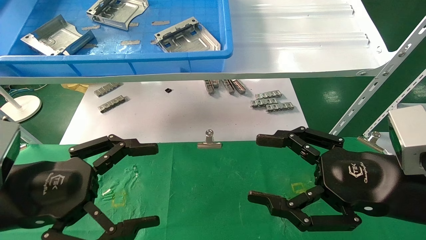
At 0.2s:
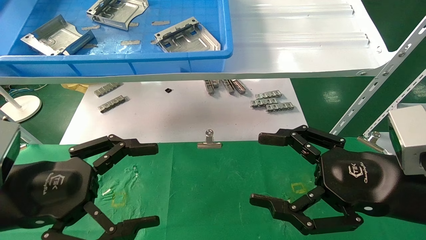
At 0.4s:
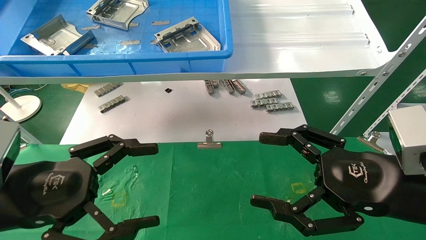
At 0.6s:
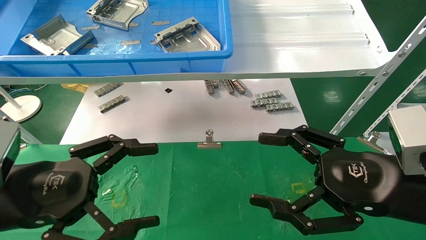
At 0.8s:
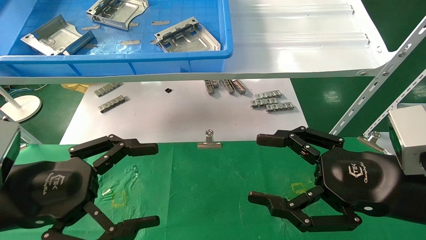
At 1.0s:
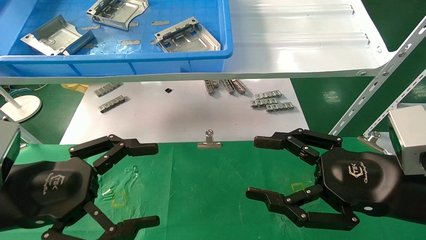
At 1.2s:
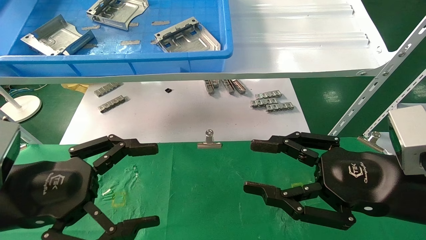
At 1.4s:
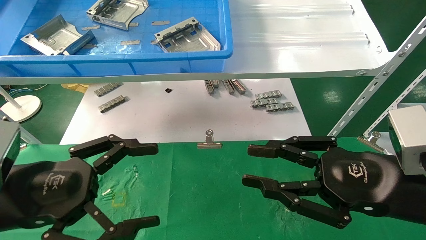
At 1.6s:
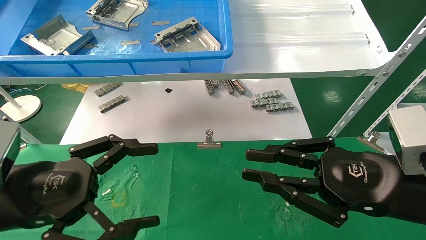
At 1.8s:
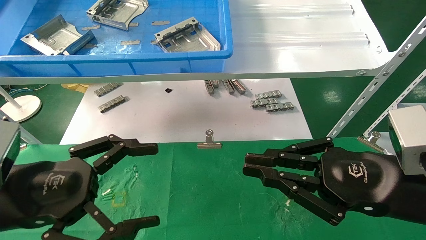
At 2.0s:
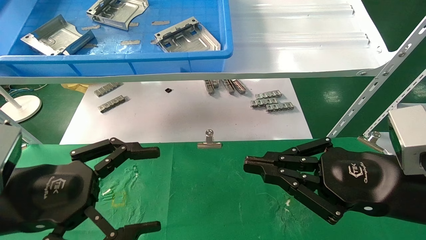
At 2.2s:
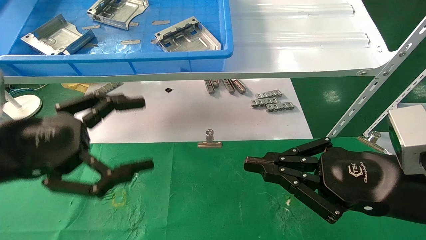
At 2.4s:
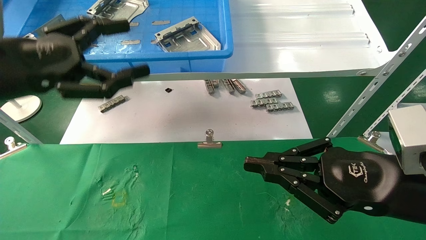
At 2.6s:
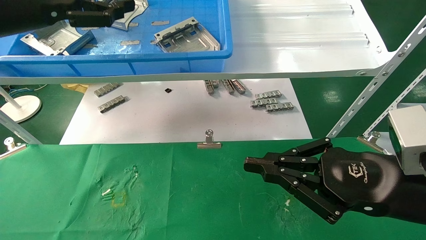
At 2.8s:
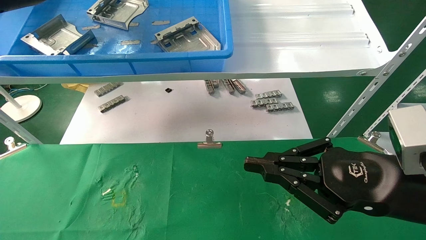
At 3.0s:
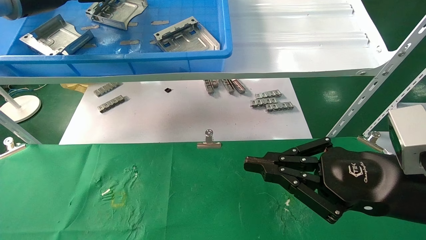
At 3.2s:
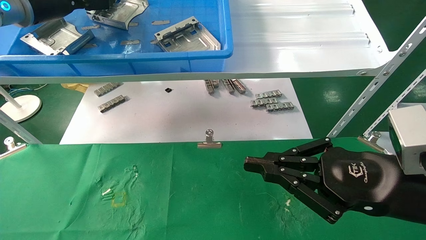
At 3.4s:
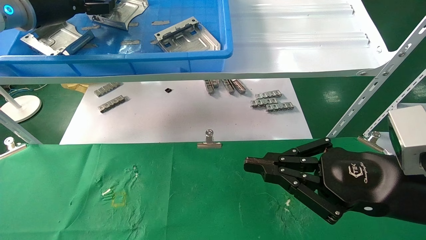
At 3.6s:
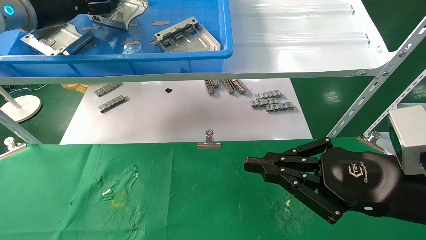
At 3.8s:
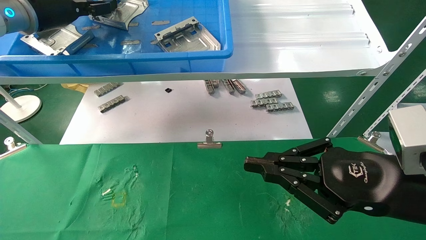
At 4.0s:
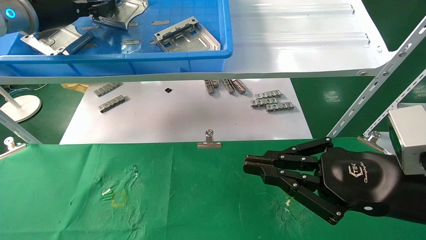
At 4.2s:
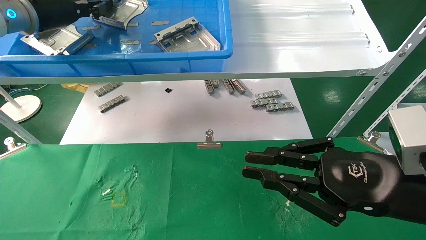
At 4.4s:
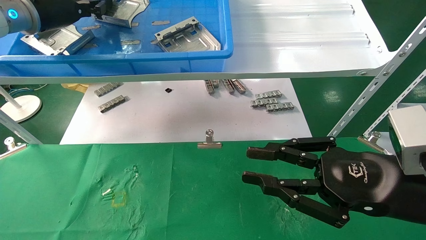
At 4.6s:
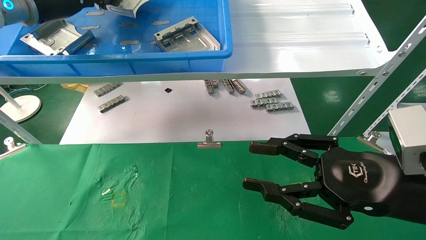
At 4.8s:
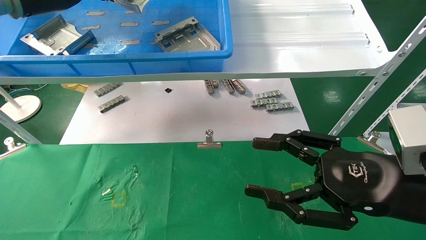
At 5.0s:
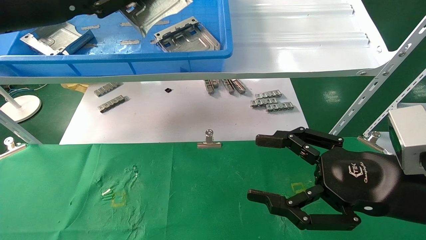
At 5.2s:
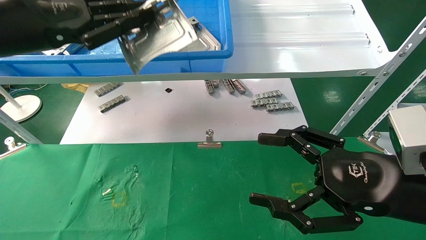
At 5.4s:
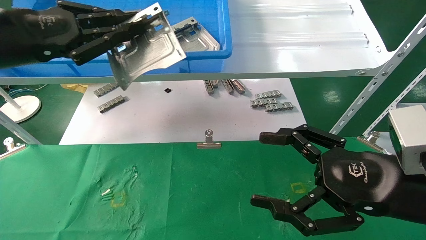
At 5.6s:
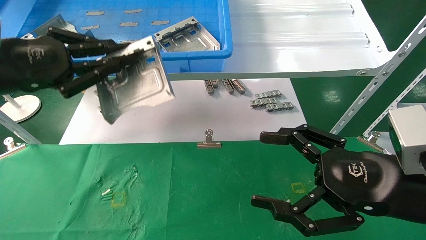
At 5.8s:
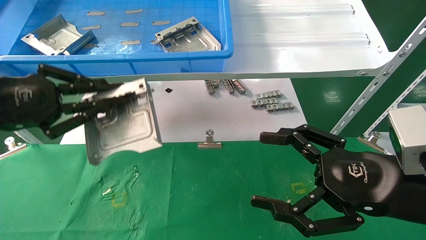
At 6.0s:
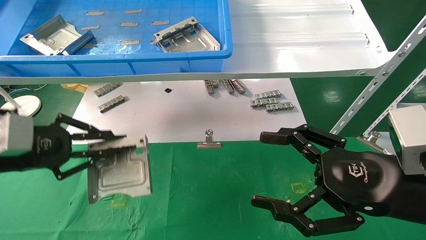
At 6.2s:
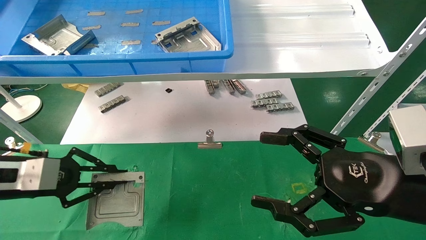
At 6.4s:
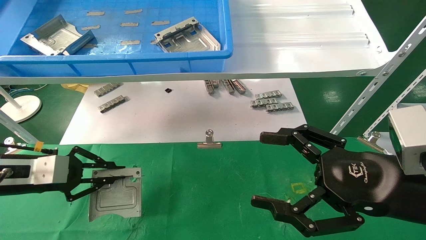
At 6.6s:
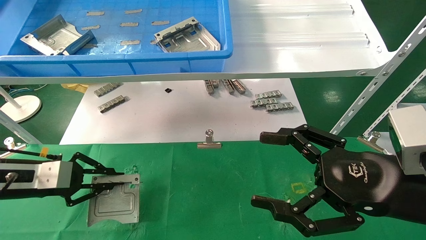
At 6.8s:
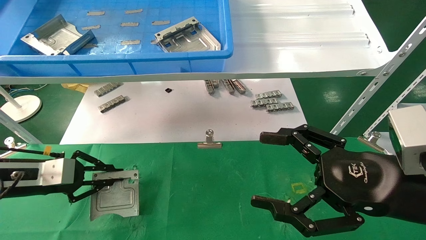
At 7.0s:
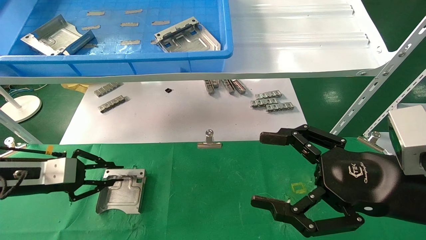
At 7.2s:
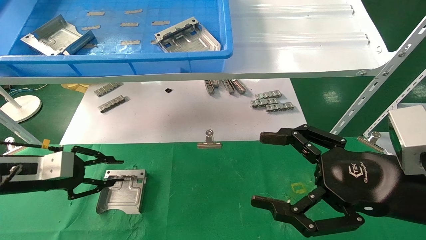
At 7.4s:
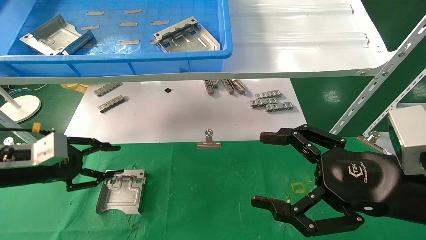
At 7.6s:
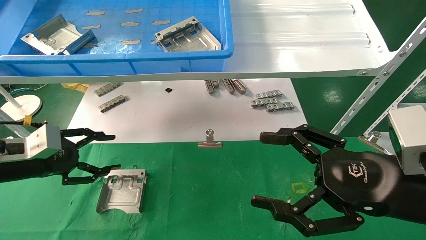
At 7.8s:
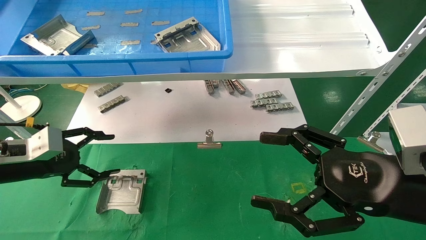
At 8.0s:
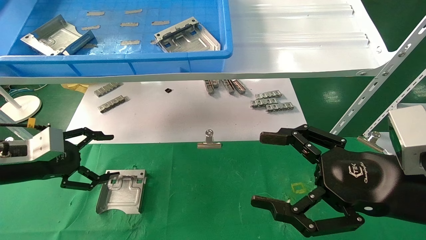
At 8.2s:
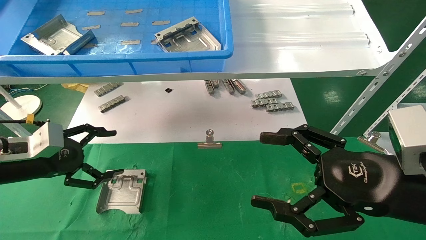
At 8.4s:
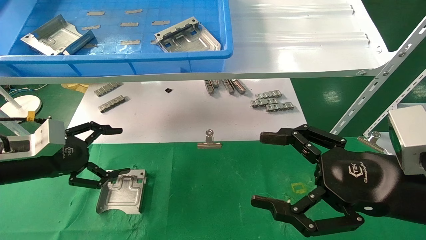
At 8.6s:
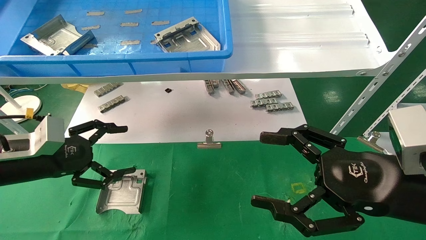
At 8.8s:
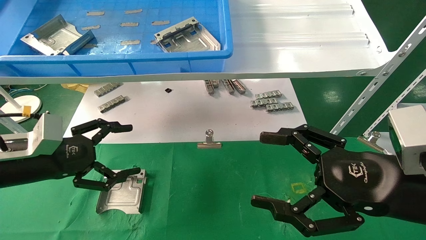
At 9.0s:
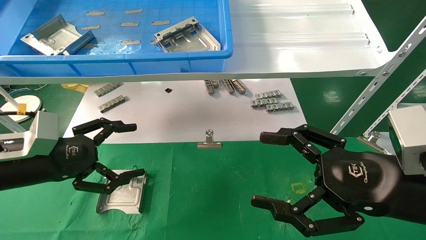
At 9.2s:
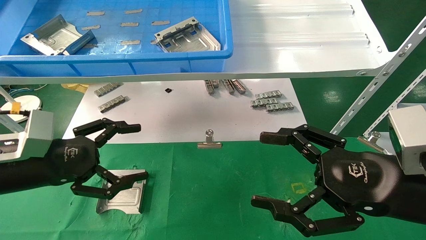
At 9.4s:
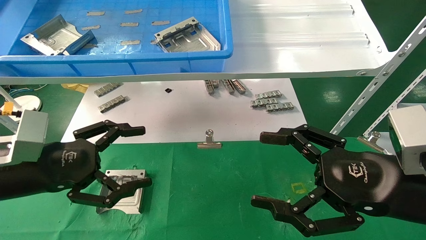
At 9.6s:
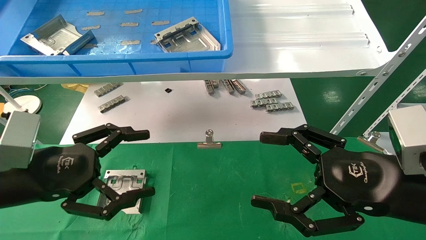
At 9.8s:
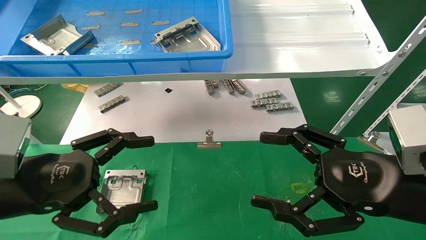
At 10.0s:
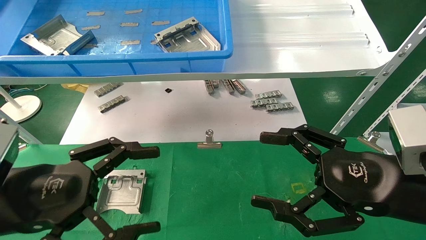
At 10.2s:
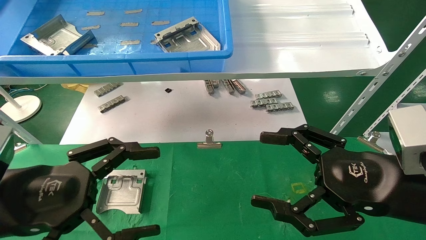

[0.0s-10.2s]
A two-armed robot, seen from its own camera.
Task of the whole recording: use the mechanical arm to pick up the parts and place them on the table.
Step, 1.4s to 4.6s: Pick up the hard drive bracket from the feeding area.
Step, 4.8s to 7.4s: Place the hard drive bracket into the box.
0.0s to 1.4s: The two grippers keep their place.
1.4s to 3.0s: The right gripper closes its fingers. Meanwhile the left gripper is displaced upward and forward by some 30 cm.
3.0s to 4.4s: The left gripper closes its fingers.
4.4s to 5.8s: The left gripper moves backward and downward, about 20 cm. The right gripper opens its fingers.
5.8s to 7.2s: The left gripper is displaced downward and forward by approximately 15 cm.
7.2s to 8.8s: The left gripper shifts by roughly 5 cm, and opens.
8.8s to 10.2s: The left gripper goes some 15 cm backward and to the right.

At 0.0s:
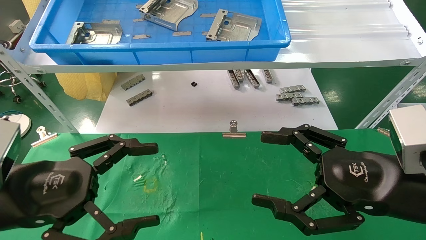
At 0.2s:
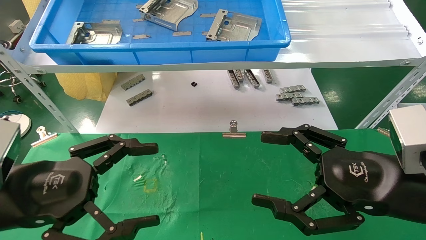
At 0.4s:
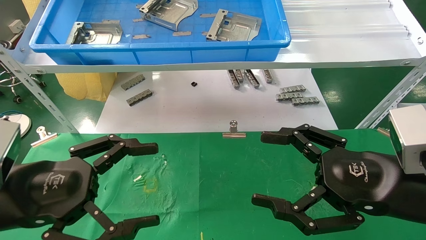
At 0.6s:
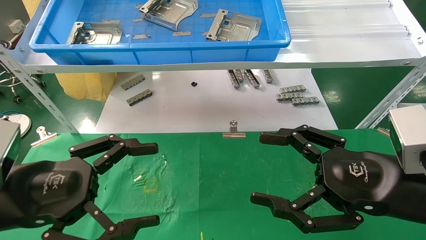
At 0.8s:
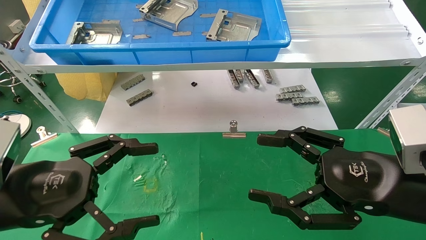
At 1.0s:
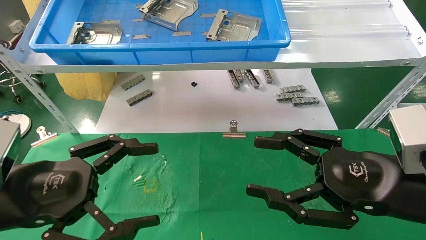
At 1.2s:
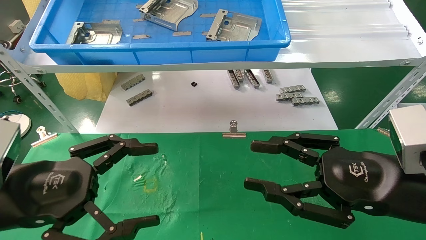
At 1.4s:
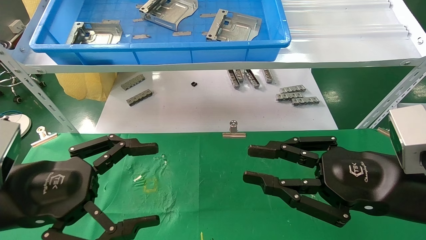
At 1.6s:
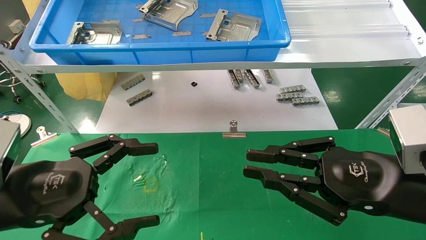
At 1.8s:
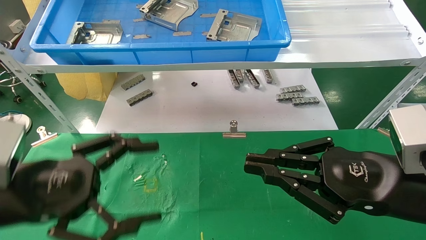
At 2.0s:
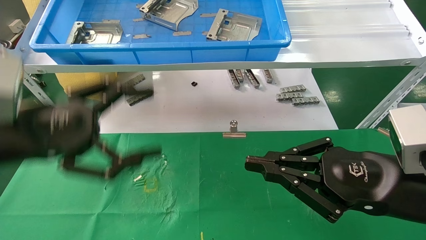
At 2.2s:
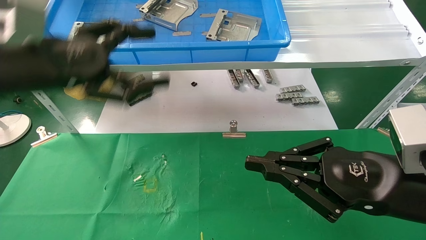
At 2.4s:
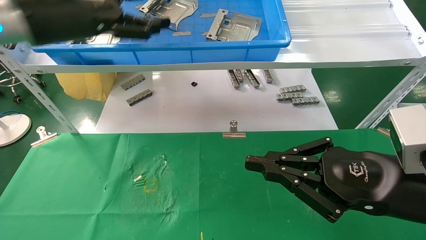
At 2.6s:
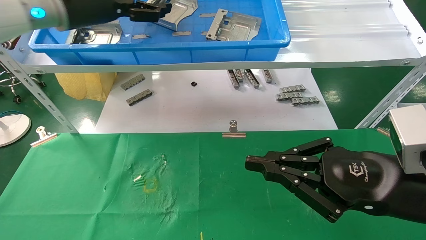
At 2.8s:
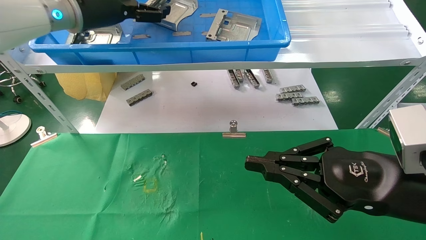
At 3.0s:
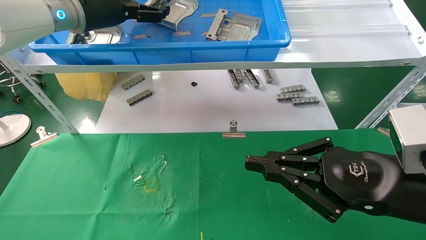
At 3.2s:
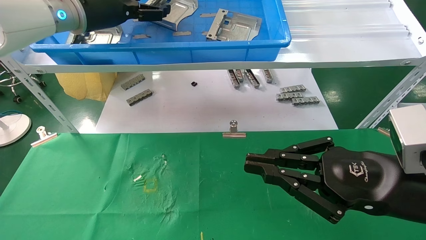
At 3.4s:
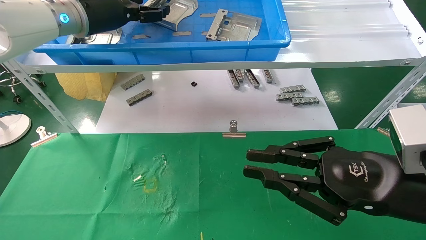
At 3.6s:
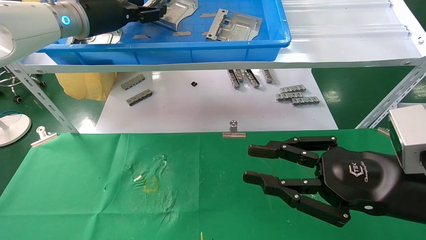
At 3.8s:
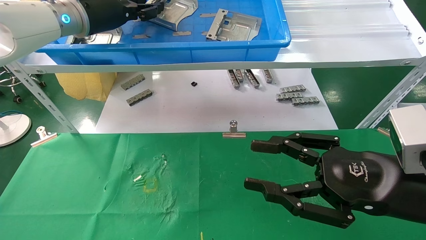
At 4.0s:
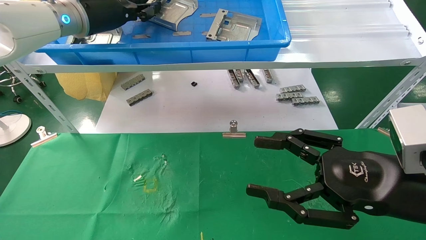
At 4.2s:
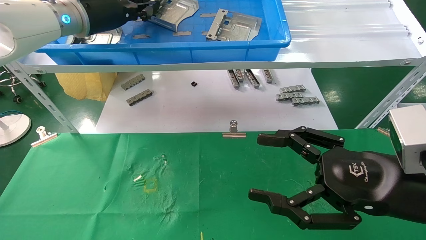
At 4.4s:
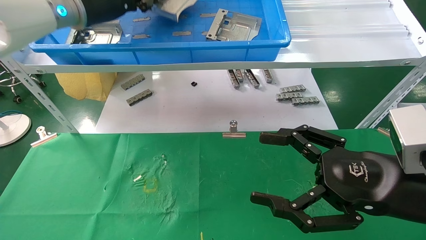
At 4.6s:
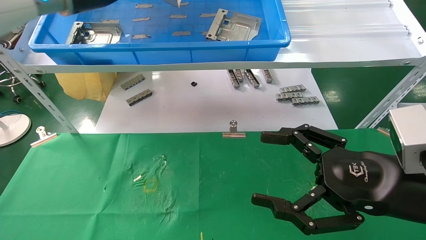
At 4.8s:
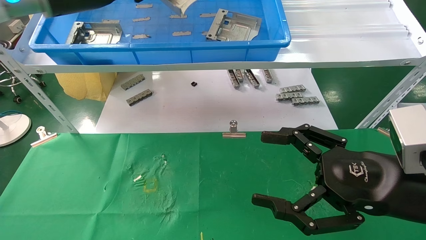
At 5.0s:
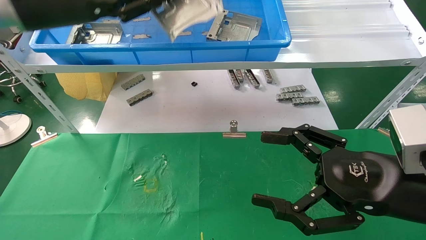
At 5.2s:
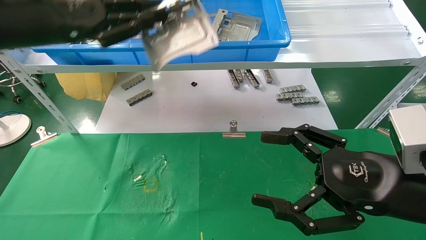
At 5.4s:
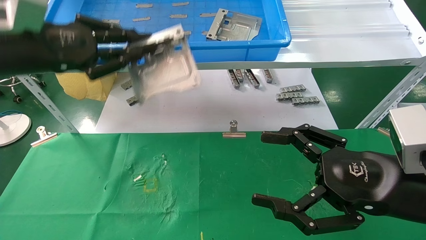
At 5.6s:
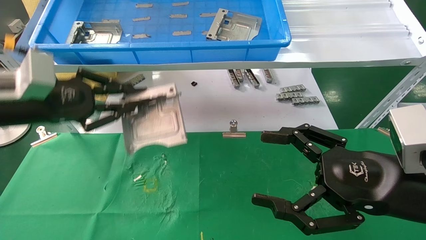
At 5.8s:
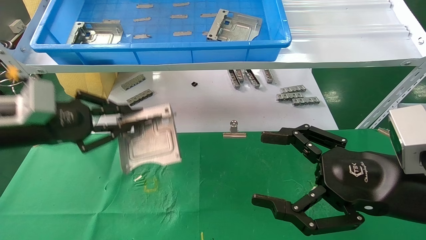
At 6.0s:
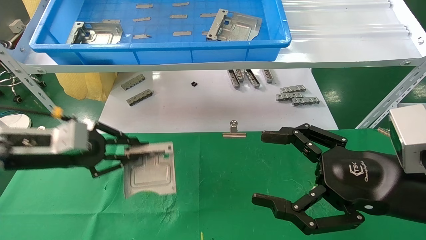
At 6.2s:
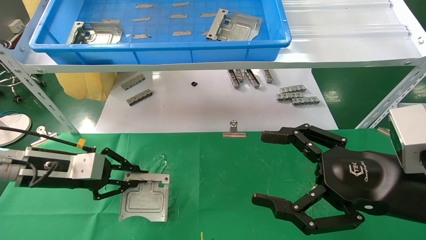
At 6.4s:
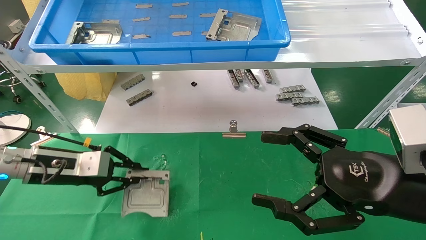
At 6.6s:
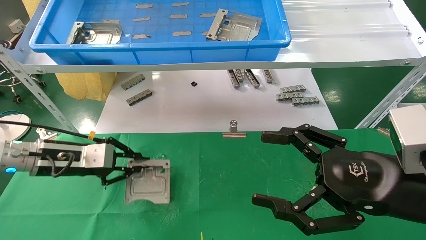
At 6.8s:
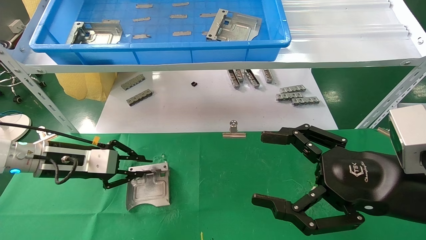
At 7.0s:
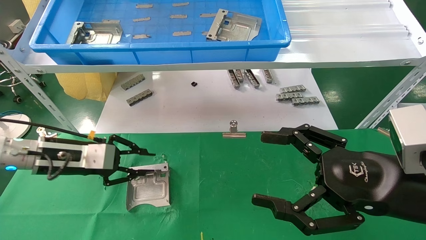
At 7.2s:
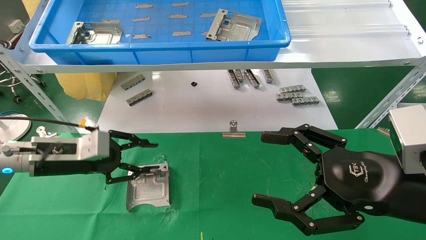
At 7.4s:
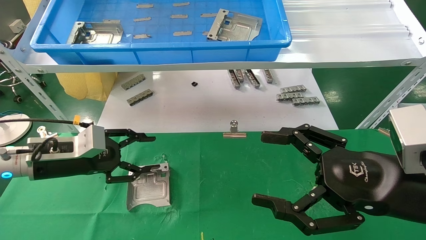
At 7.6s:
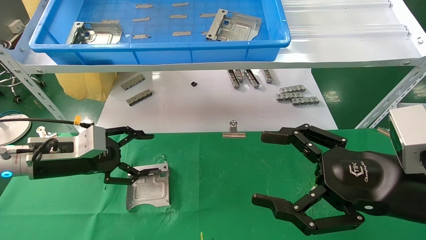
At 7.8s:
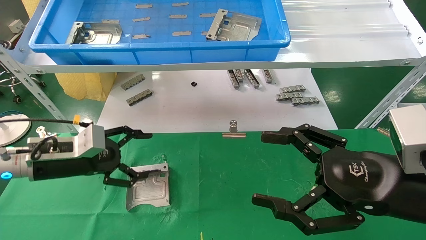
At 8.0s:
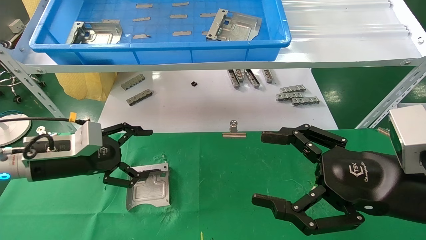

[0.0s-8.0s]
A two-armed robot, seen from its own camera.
Task of the whole recording: use the mechanical arm to pick up the parts and place them on the table.
Step, 1.6s to 4.8s: Pick up the hard drive bracket from the feeding area.
0.0s to 1.6s: The right gripper closes its fingers.
1.6s to 3.2s: The left gripper moves forward and upward, about 30 cm.
3.2s to 4.8s: The right gripper opens its fingers; the left gripper heads backward, covering roughly 5 cm, and closes.
4.8s to 6.4s: The left gripper shifts some 30 cm downward.
6.4s to 8.0s: The left gripper opens its fingers.
